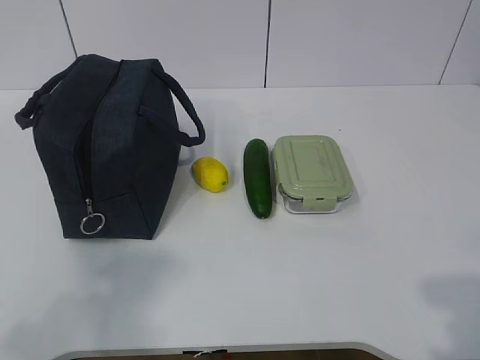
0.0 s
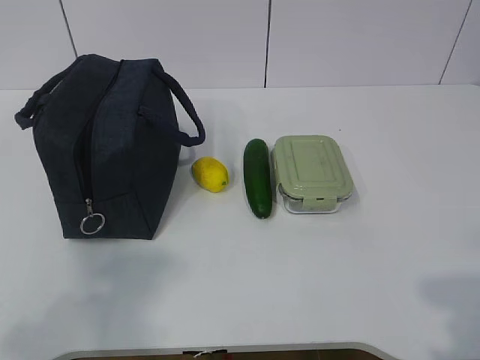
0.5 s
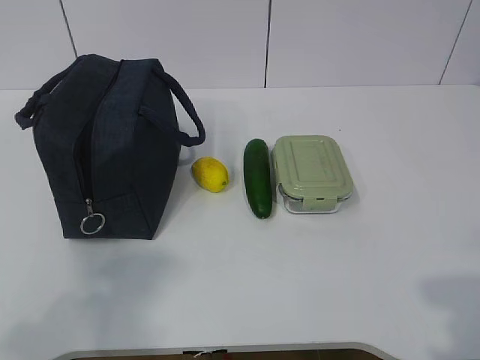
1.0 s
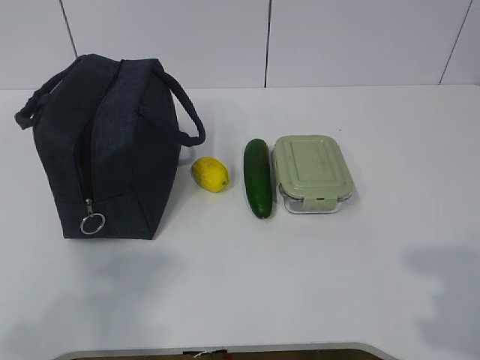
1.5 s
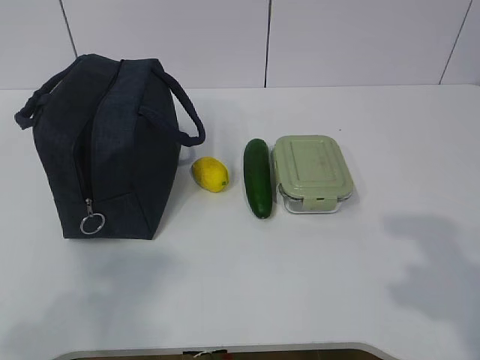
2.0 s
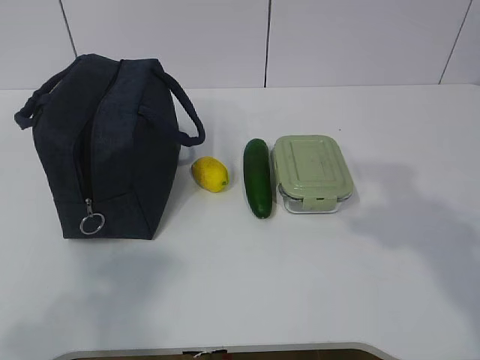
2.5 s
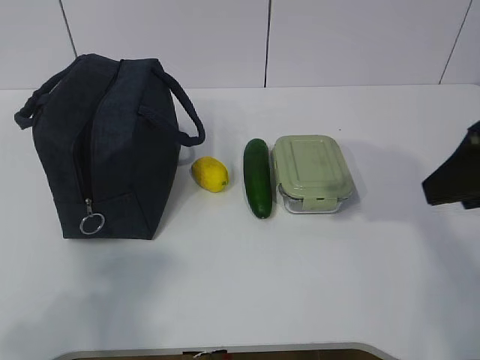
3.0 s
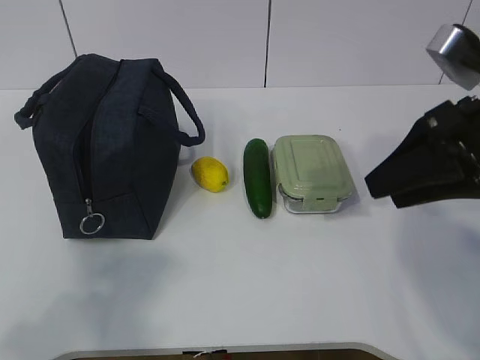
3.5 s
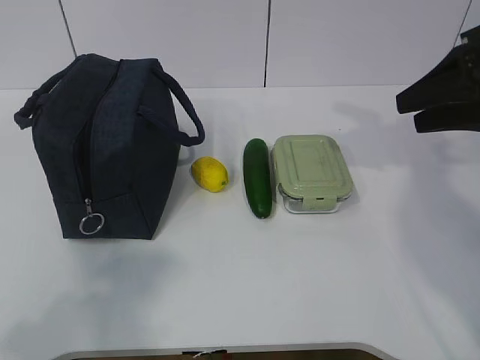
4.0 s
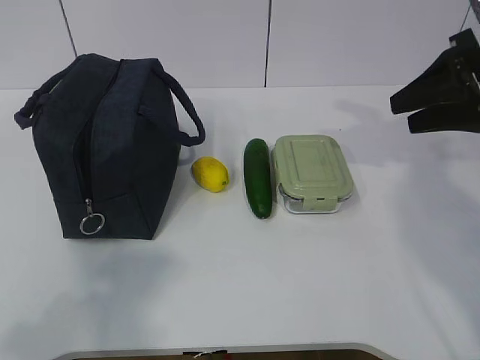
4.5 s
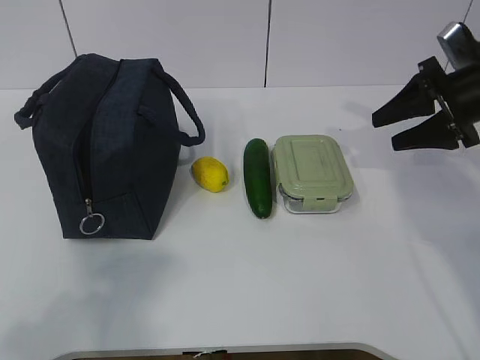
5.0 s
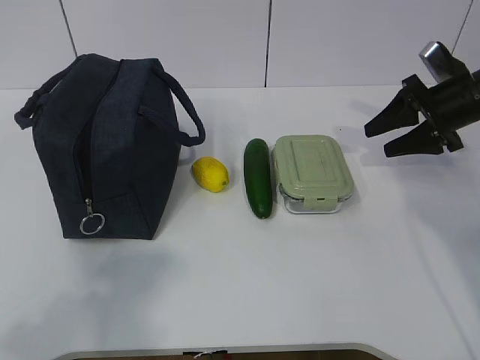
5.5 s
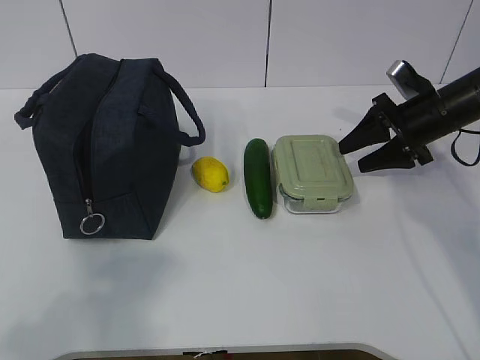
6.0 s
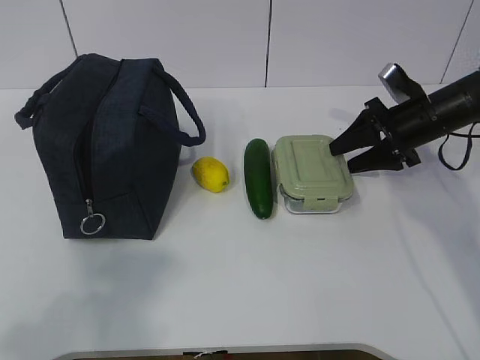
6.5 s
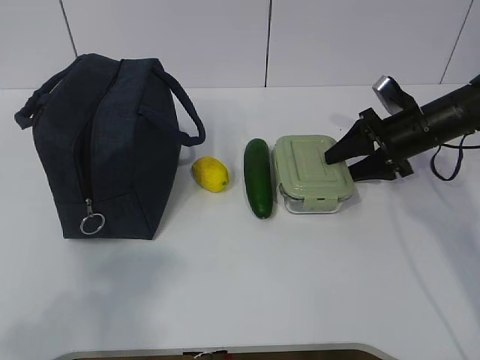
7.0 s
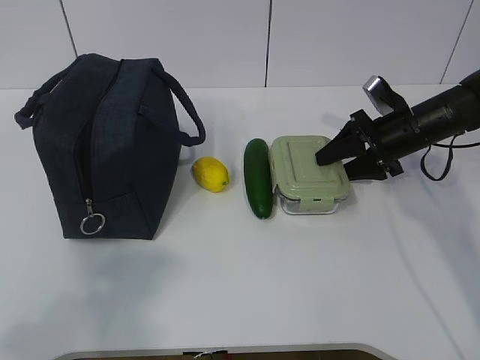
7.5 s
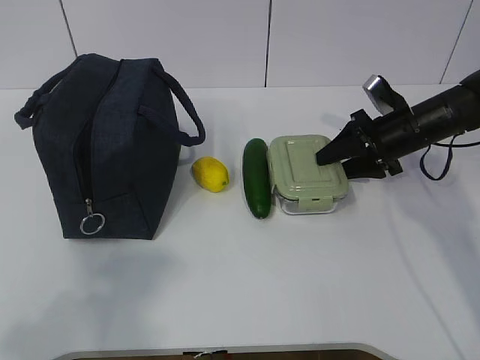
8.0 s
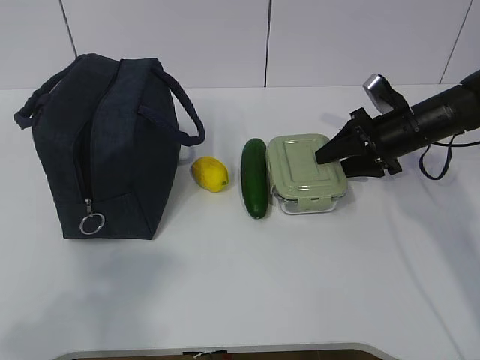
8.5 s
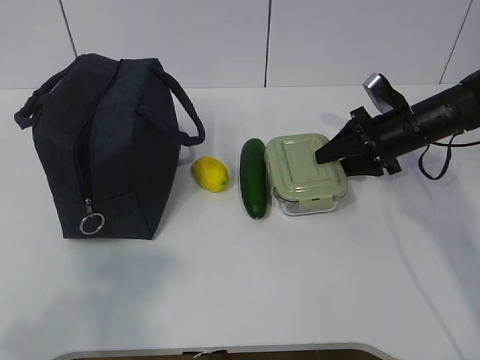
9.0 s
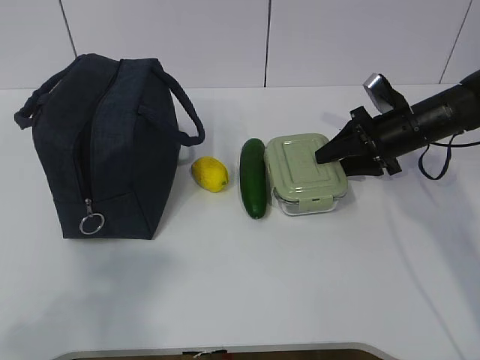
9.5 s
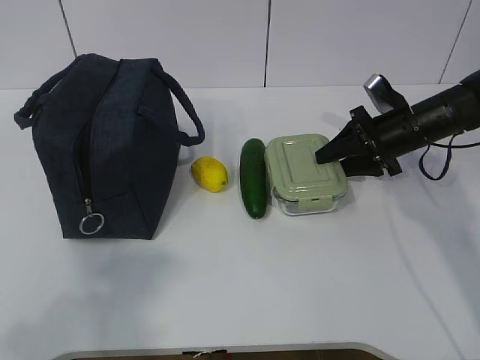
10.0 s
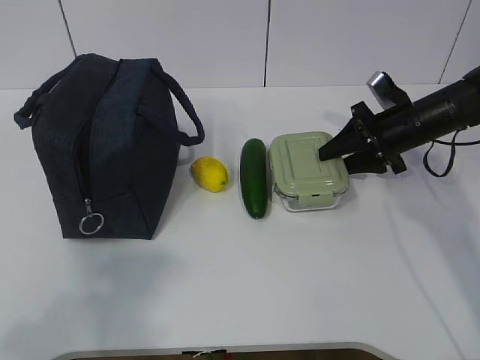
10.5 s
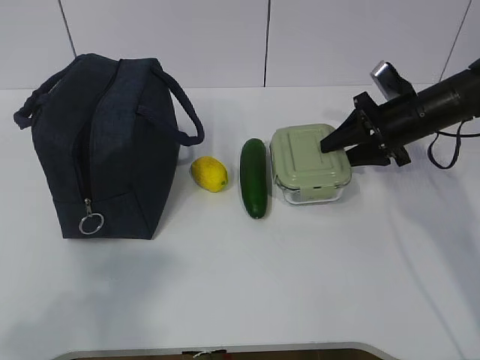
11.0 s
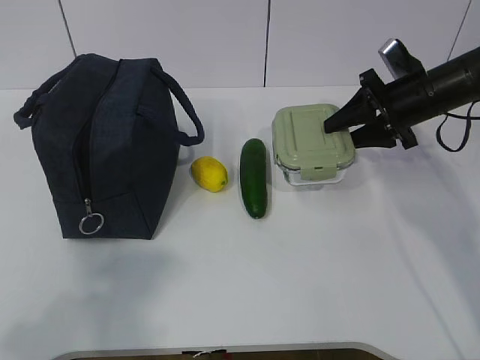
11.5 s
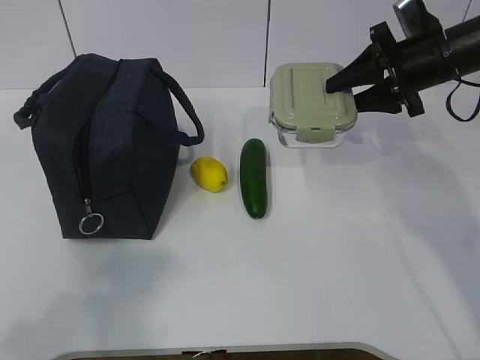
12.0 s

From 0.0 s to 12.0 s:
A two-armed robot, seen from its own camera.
Step, from 0.0 s to 8.5 s: Grab the lunch box with your right hand.
From 2.0 s to 4.0 s: The right gripper is displaced forward by approximately 25 cm.
From 4.0 s to 6.0 s: The right gripper heads downward and forward, covering roughly 15 cm.
From 6.0 s to 8.0 s: The grippers move only a little.
From 8.0 s to 10.0 s: Both grippers stay about where they are.
From 10.0 s to 12.0 s: The right gripper goes some 10 cm upward.

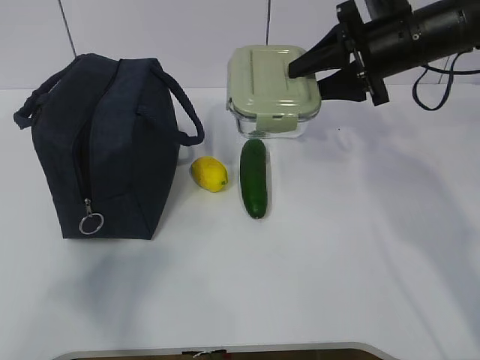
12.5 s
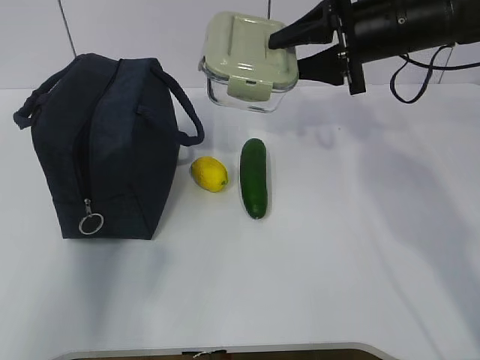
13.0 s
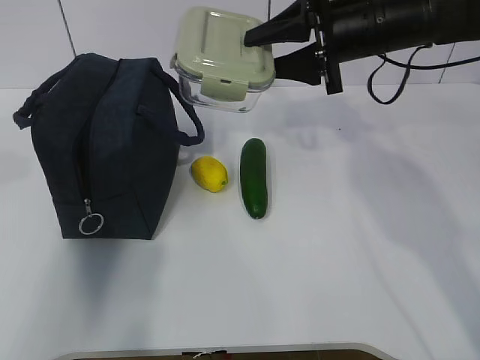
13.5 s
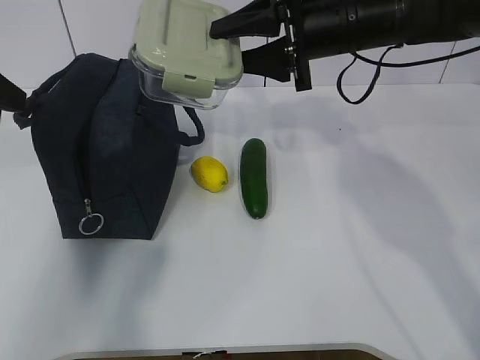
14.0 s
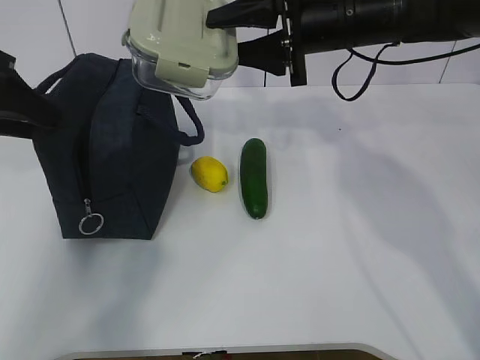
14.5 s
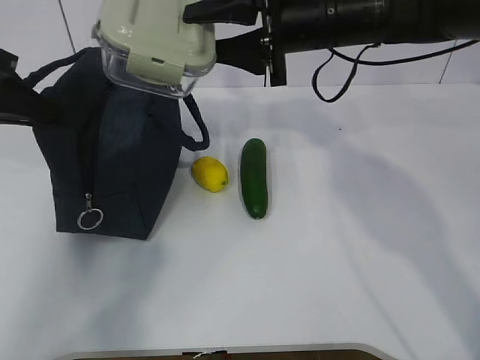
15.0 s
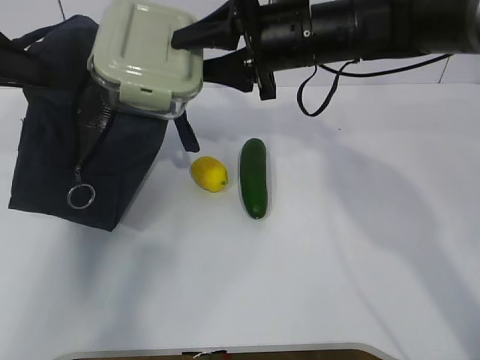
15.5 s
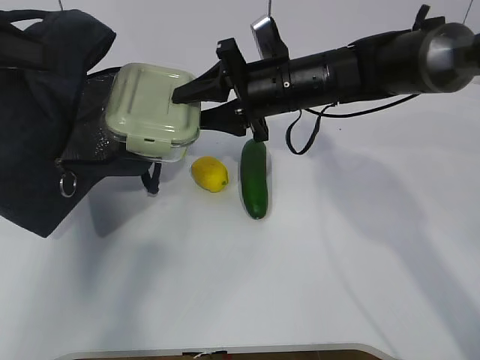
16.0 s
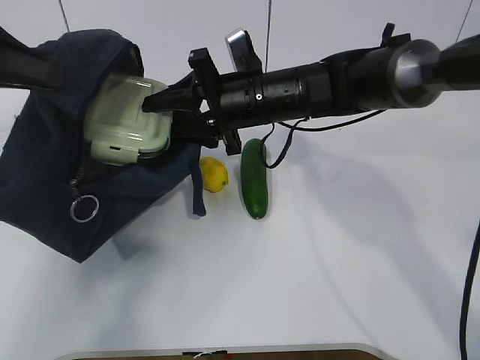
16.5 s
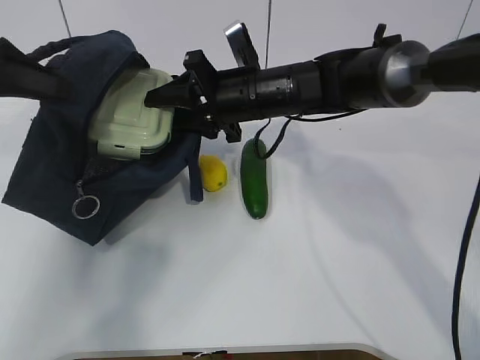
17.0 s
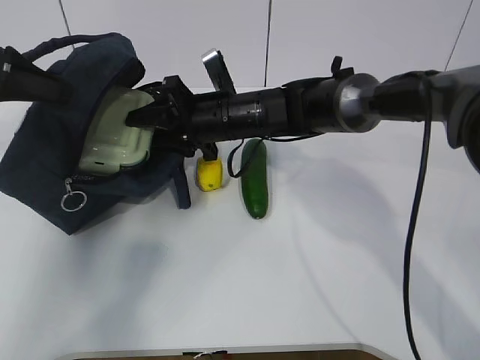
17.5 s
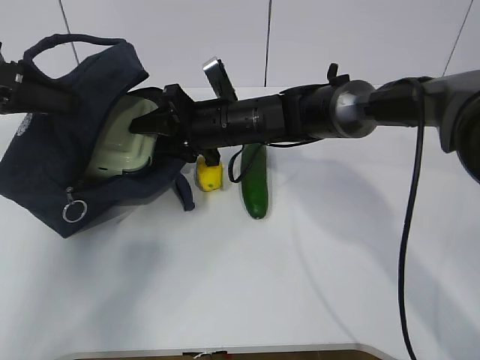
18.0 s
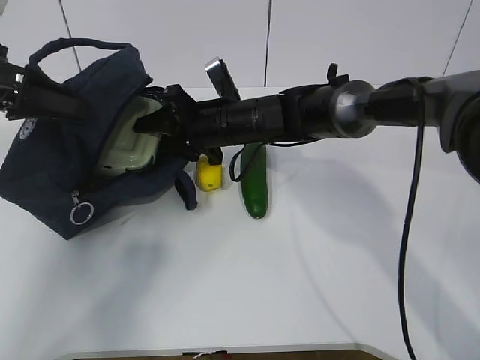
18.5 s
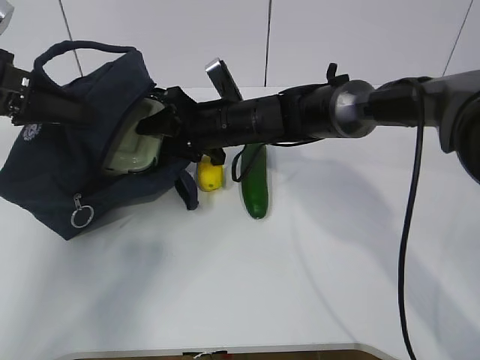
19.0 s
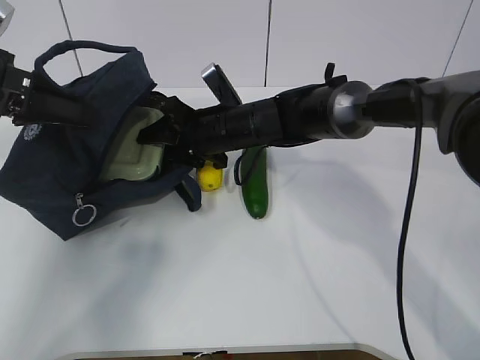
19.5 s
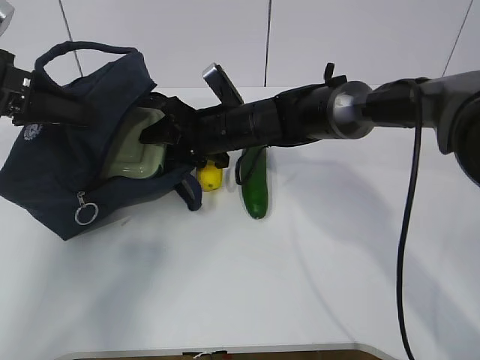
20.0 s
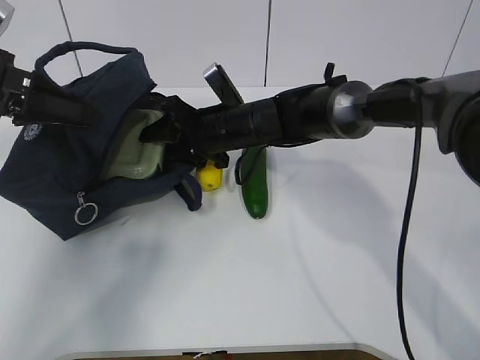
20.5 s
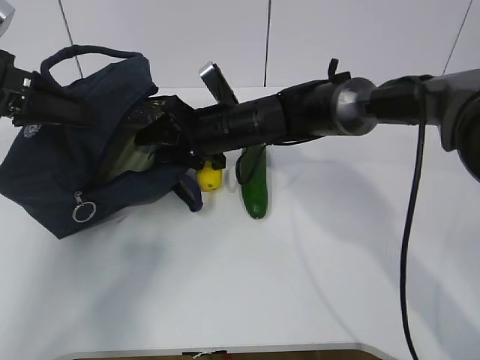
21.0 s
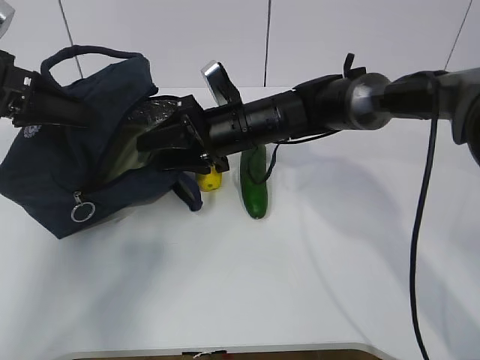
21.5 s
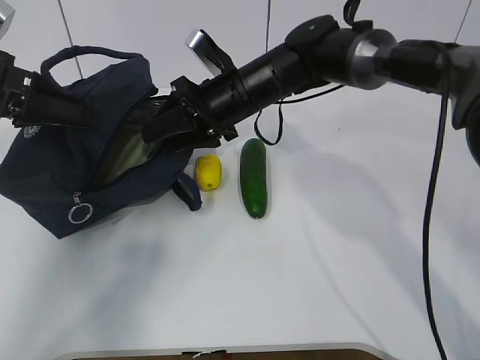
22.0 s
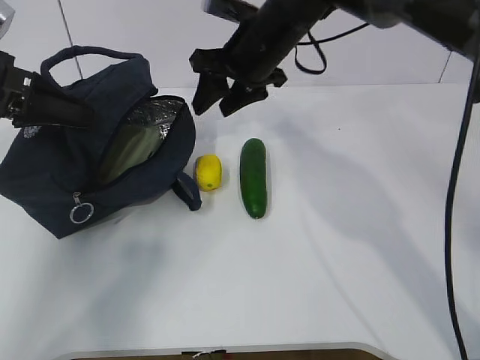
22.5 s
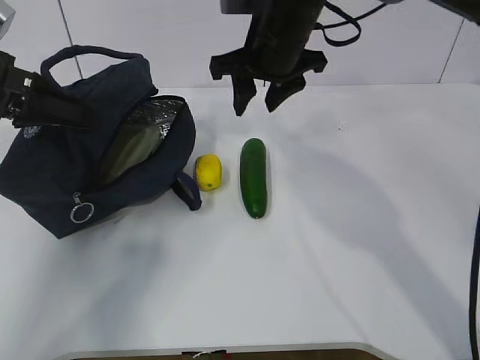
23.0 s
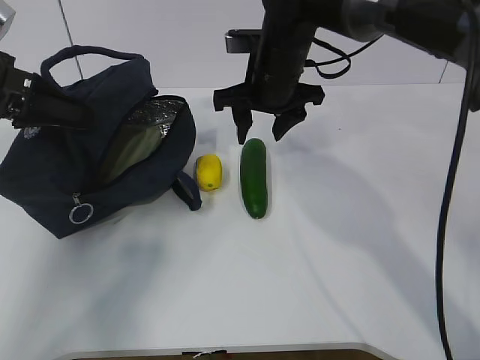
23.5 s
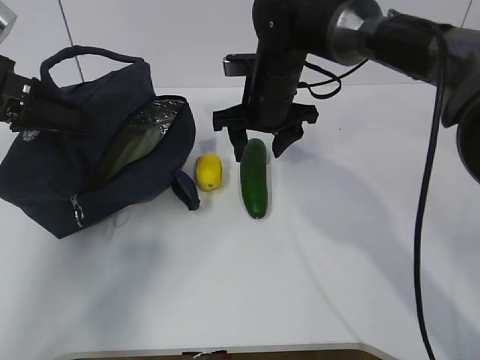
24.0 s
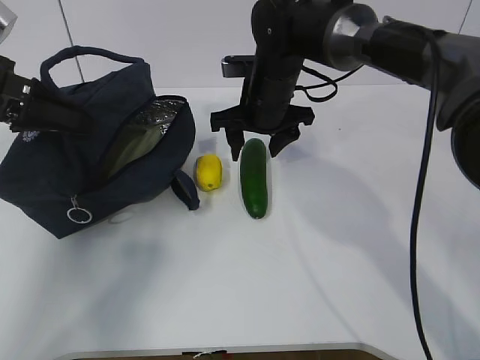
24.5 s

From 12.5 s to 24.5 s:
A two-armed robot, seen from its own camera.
Step, from 13.0 s to 18.0 s: Place it into the bag with your right hand.
Step, from 18.5 s to 21.5 s: Grab the cucumber with your right hand.
Step, from 22.0 s to 24.0 s: Place it into the bag with your right hand.
From 12.5 s to 14.5 s: The left gripper travels forward by approximately 30 cm; the right gripper is displaced to the left by some 10 cm.
From 14.5 s to 16.5 s: The right gripper travels downward and to the left by some 10 cm. Meanwhile the left gripper moves about 5 cm, and closes.
From 16.5 s to 18.5 s: The grippers both shift downward by about 5 cm.
From 18.5 s to 20.5 s: The grippers make only small movements.
From 20.5 s to 22.5 s: The right gripper heads upward, covering about 10 cm.
From 22.5 s to 24.5 s: The right gripper goes some 5 cm downward.

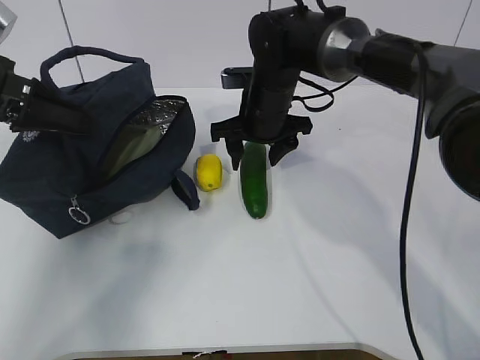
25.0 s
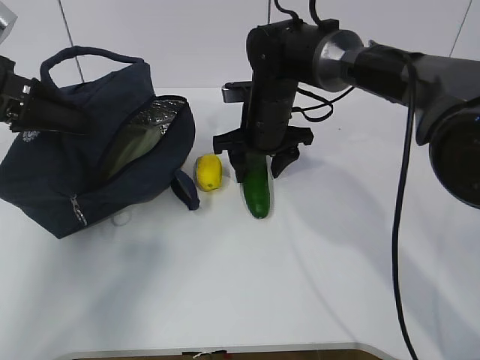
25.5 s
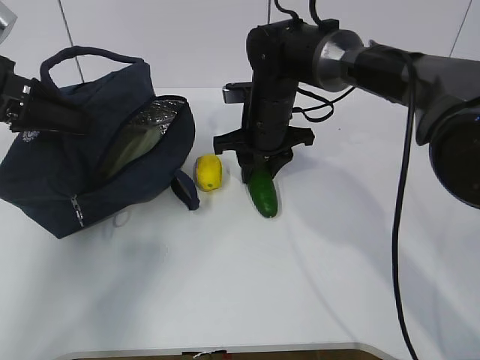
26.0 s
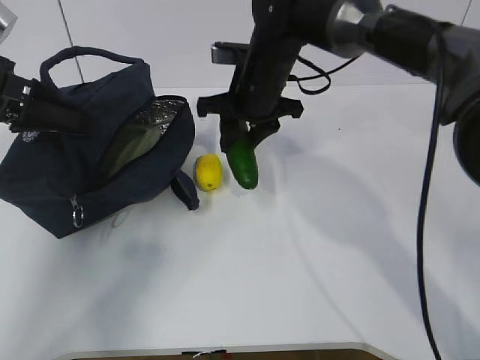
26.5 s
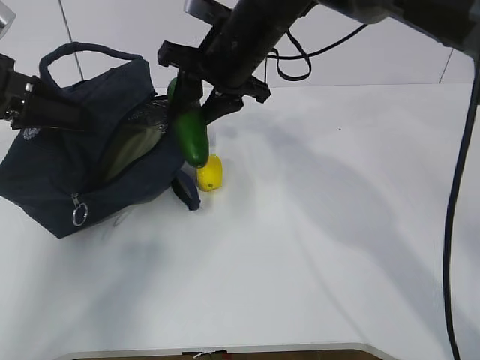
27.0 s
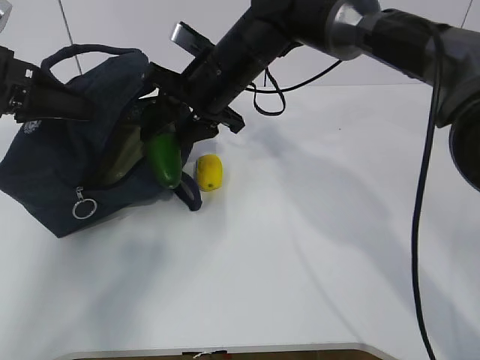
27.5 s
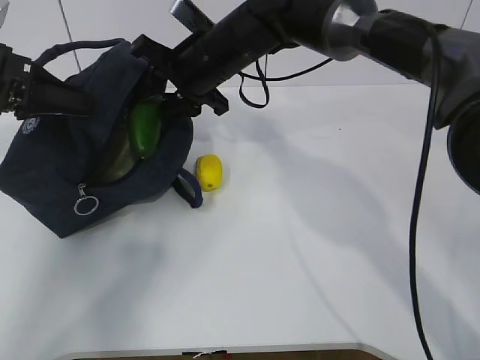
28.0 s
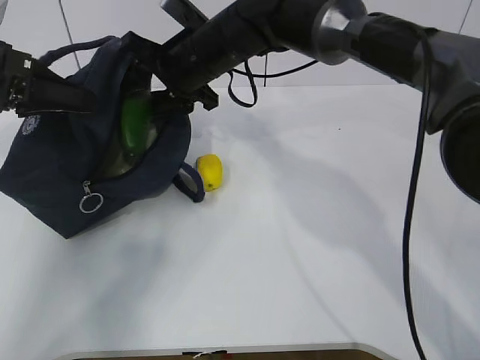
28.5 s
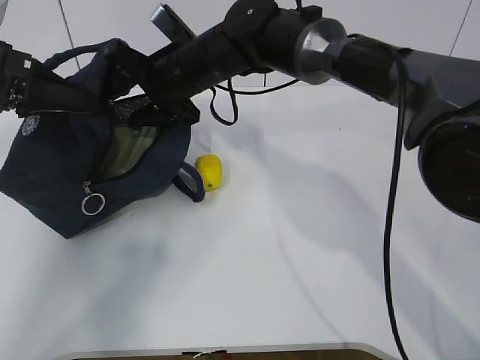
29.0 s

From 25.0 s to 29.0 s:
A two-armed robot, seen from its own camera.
Step, from 25.0 s to 27.0 s: Grab the lemon with your right hand.
From 25.0 s to 27.0 s: The right gripper shifts about 10 cm upward, and closes.
From 27.0 s to 29.0 s: The right gripper travels to the left by approximately 5 cm.
